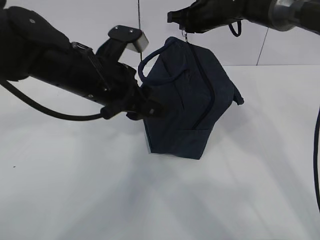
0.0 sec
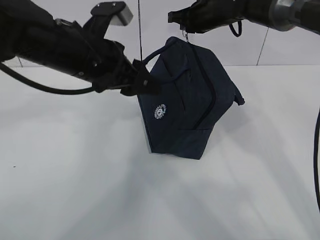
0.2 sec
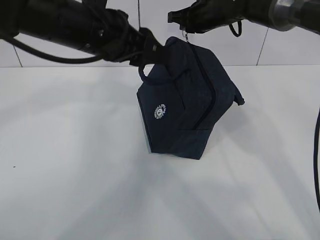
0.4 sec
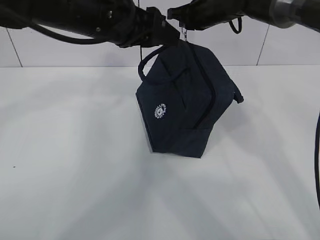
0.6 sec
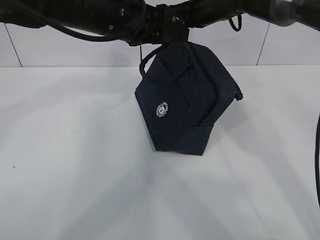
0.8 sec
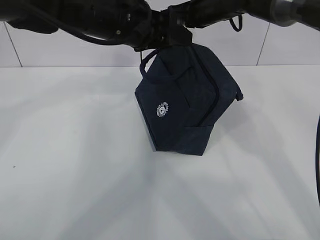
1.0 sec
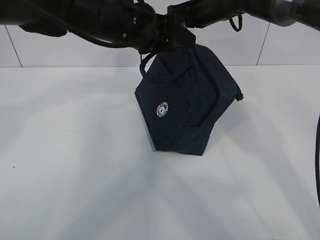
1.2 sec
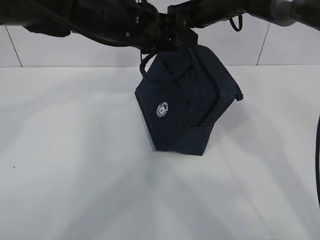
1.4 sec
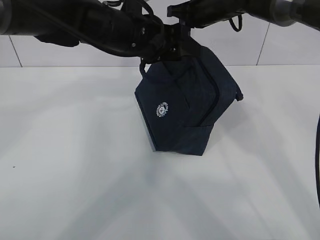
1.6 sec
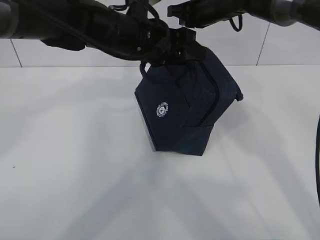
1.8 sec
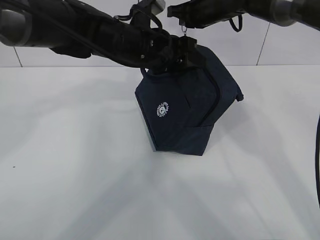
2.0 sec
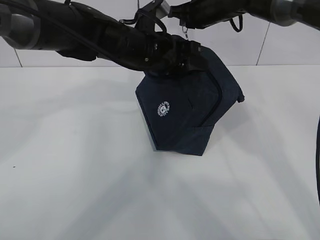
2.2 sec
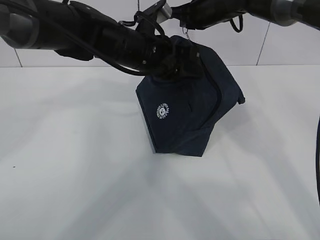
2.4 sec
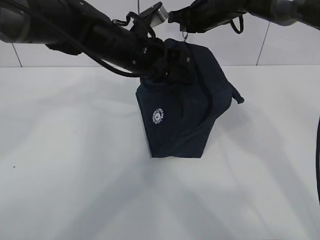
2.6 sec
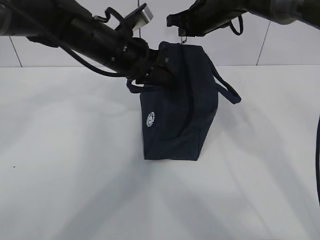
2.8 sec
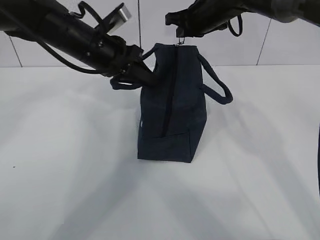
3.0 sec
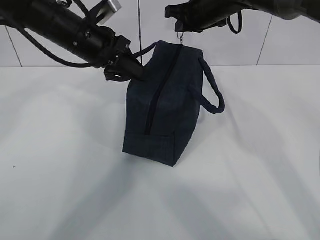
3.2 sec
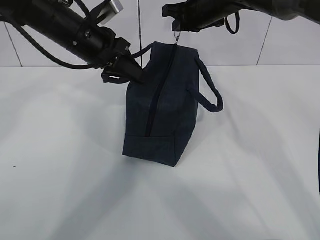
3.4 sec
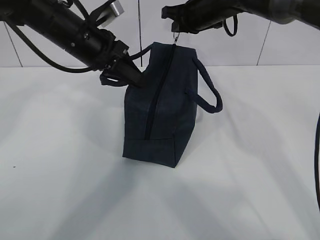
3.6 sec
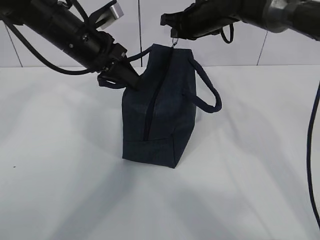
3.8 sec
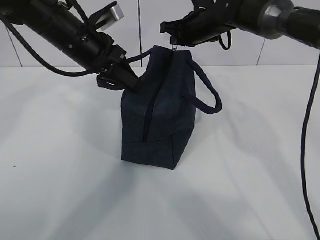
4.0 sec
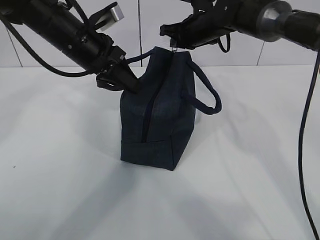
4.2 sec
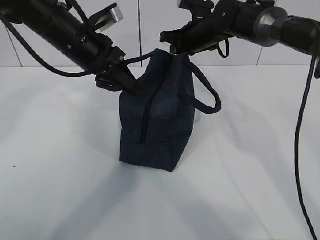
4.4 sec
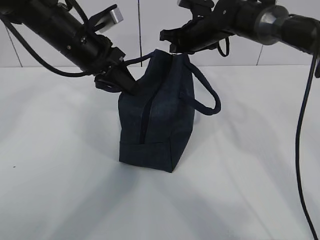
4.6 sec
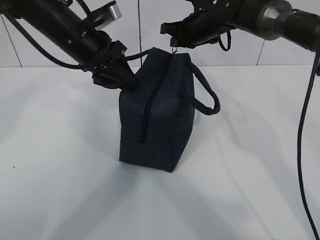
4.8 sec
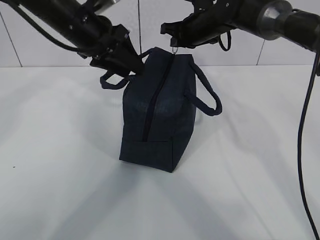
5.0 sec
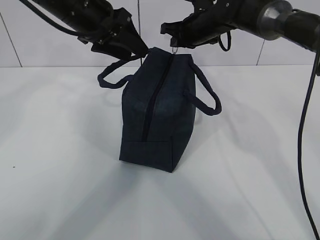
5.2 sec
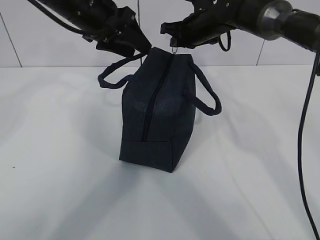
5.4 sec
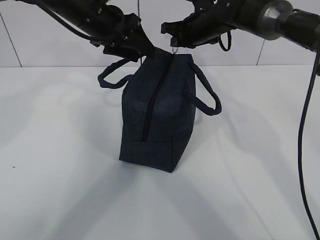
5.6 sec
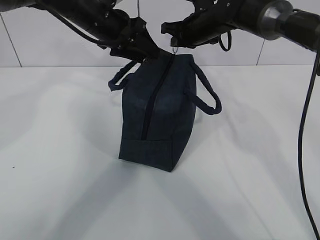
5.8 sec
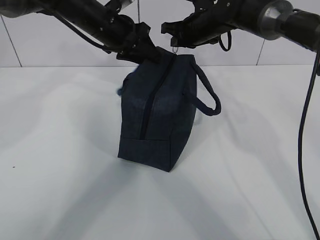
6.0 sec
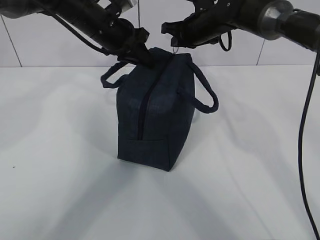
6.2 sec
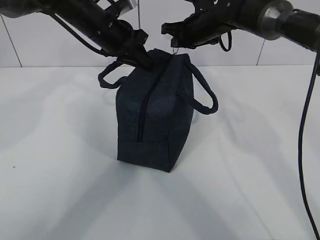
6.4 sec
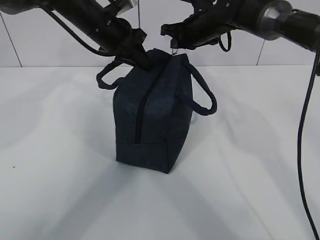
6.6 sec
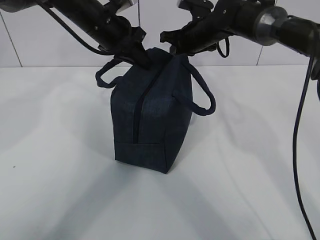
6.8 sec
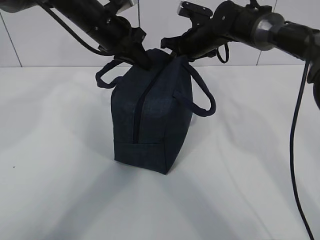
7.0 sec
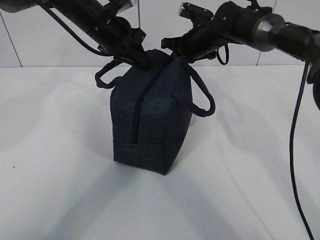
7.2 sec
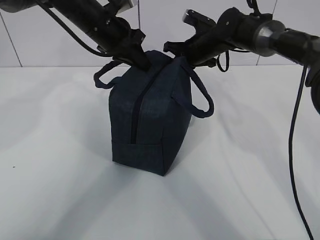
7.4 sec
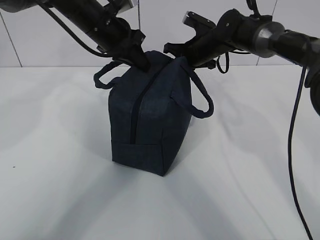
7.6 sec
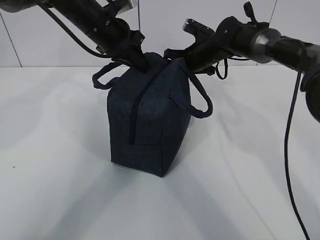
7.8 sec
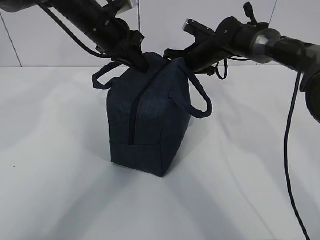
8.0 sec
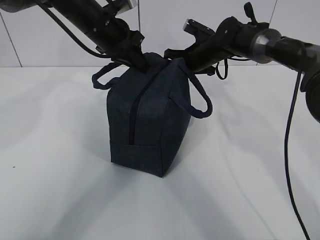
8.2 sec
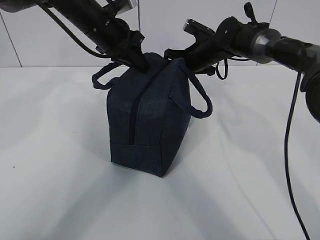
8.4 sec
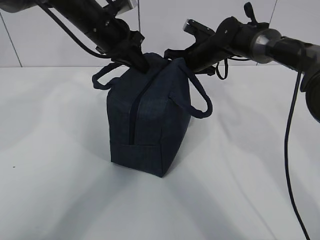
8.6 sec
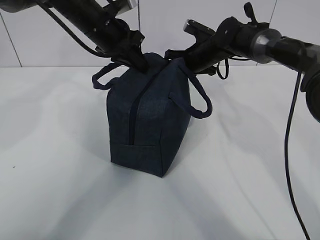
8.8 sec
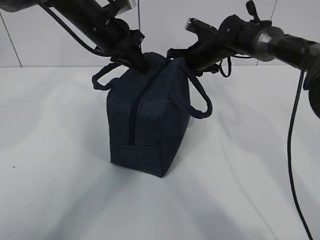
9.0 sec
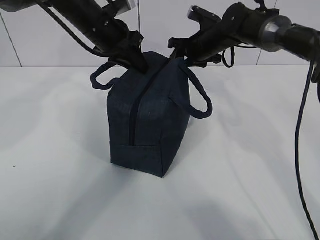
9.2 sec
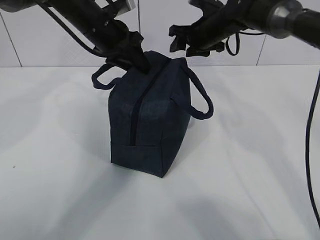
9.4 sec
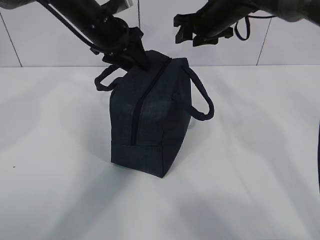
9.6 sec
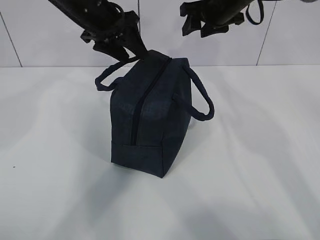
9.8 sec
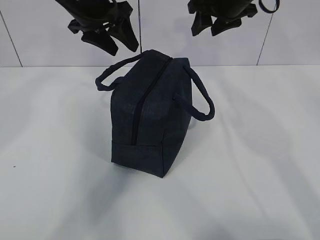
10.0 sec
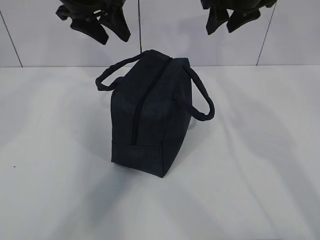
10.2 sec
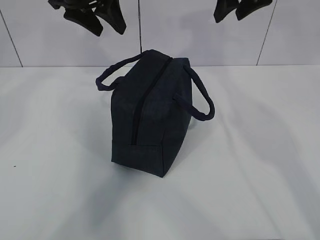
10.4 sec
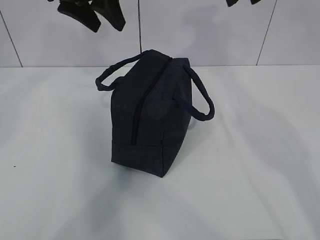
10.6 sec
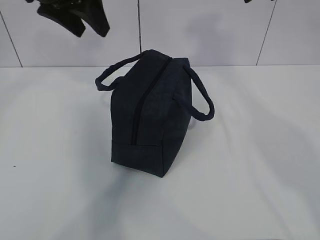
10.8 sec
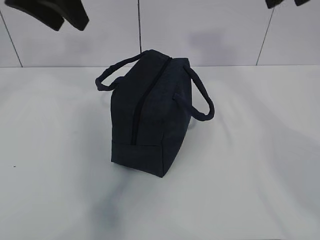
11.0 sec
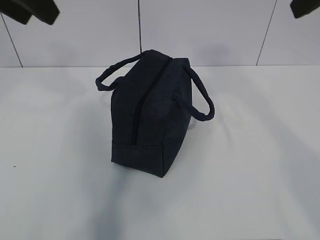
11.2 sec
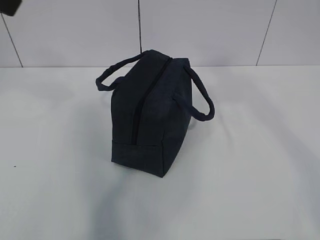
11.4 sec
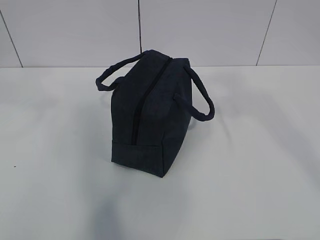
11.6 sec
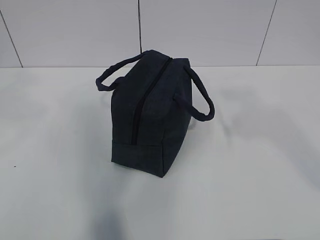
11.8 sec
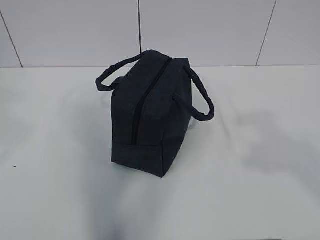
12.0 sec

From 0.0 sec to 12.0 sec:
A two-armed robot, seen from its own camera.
From 0.0 sec to 1.6 sec: The left gripper travels forward by roughly 5 cm.
From 1.6 sec to 3.0 sec: The left gripper is displaced to the left by about 5 cm, and closes.
From 3.0 sec to 4.4 sec: The right gripper moves roughly 5 cm.
From 4.4 sec to 6.0 sec: The left gripper goes approximately 5 cm forward, and opens its fingers.
From 6.0 sec to 7.6 sec: The right gripper travels downward by some 5 cm, while the left gripper closes.
From 7.6 sec to 9.0 sec: The right gripper opens up.
From 9.0 sec to 10.4 sec: The right gripper heads upward and backward, covering about 25 cm; the left gripper is displaced upward by approximately 10 cm, and opens up.
From 10.4 sec to 12.0 sec: Both grippers travel together backward, roughly 35 cm. The left gripper closes its fingers.

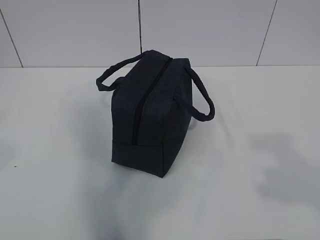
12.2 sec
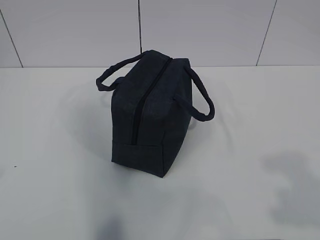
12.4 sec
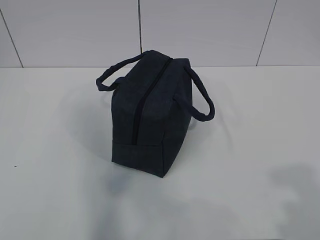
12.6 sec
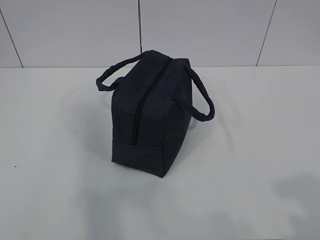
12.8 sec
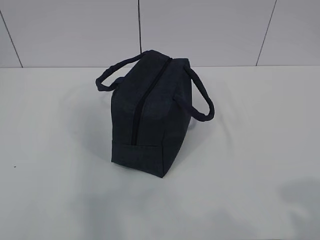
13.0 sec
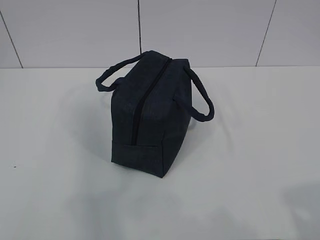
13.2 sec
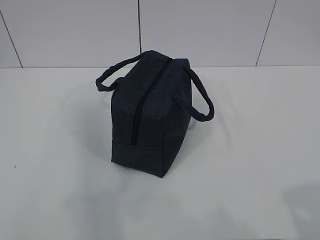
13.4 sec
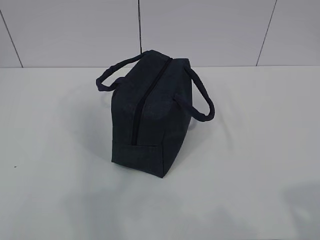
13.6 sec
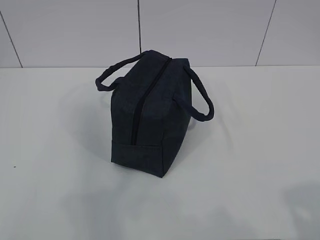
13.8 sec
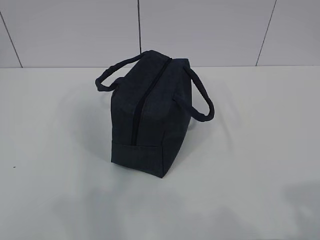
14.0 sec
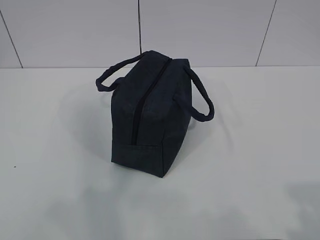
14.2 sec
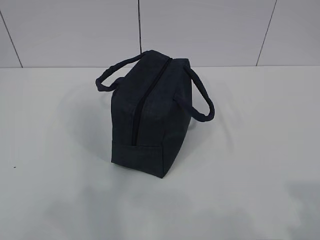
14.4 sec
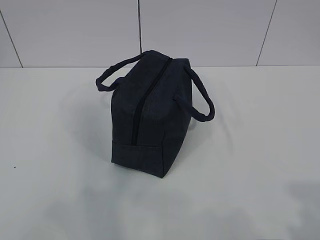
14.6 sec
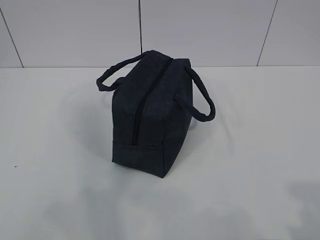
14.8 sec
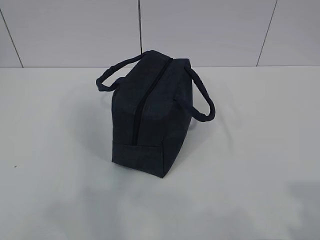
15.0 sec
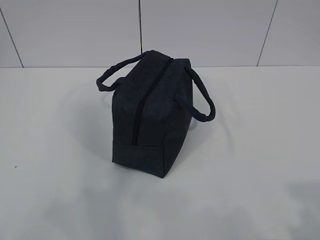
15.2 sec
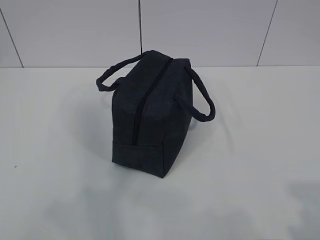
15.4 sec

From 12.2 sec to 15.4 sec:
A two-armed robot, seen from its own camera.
From 12.2 sec to 13.8 sec: The left gripper moves downward and backward, some 15 cm; the right gripper shifts approximately 10 cm downward.
From 13.8 sec to 15.4 sec: There are only small adjustments of the grippers.

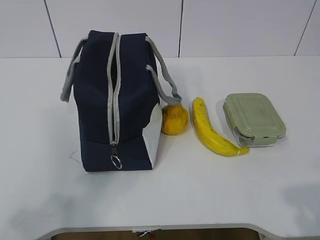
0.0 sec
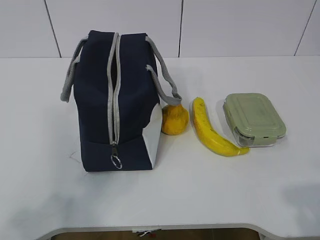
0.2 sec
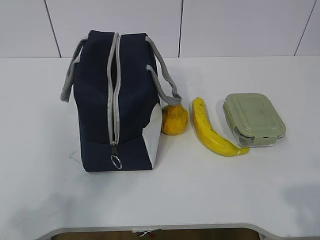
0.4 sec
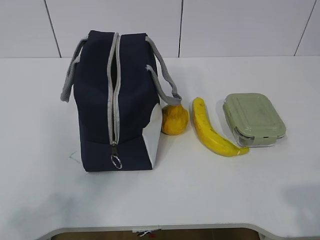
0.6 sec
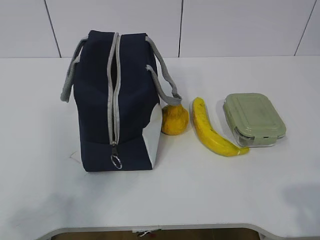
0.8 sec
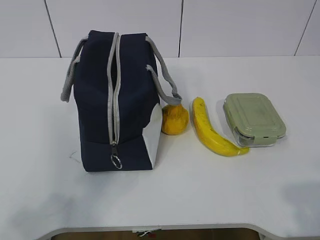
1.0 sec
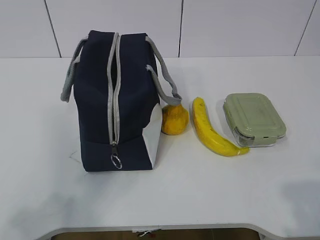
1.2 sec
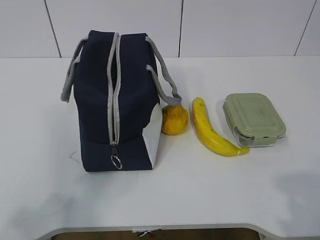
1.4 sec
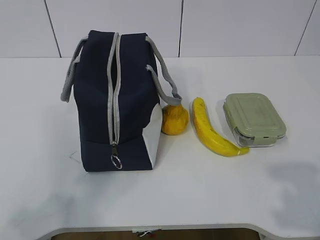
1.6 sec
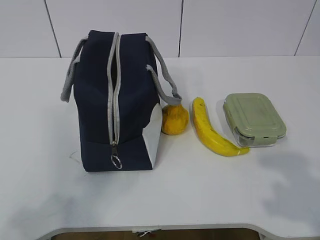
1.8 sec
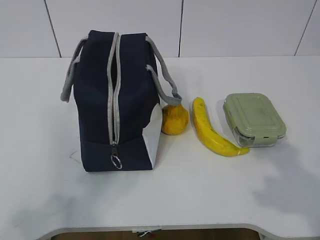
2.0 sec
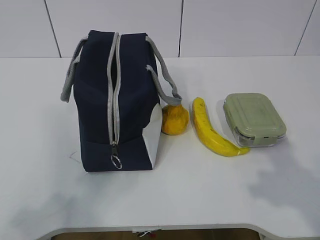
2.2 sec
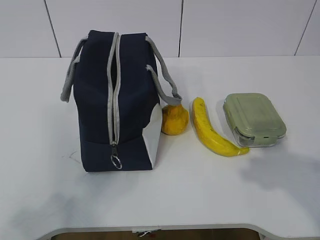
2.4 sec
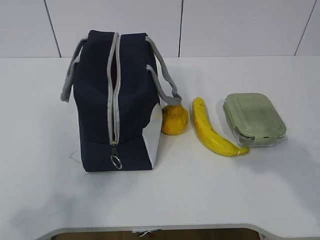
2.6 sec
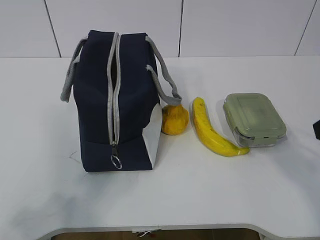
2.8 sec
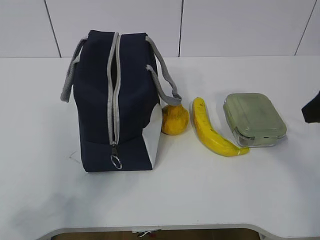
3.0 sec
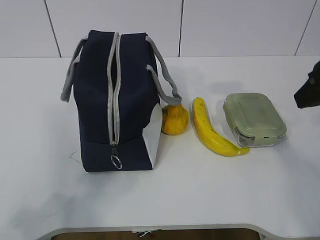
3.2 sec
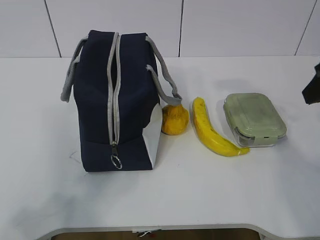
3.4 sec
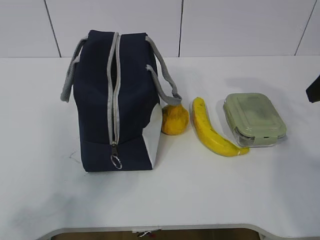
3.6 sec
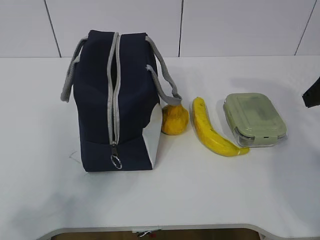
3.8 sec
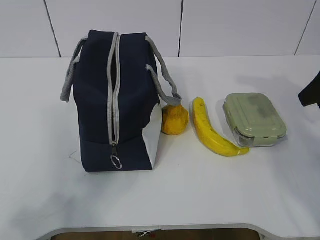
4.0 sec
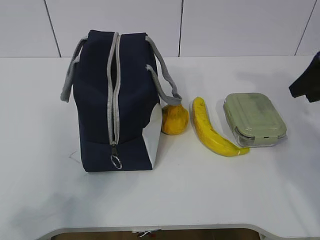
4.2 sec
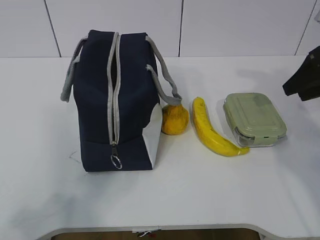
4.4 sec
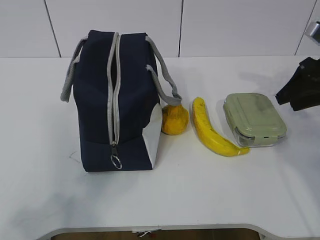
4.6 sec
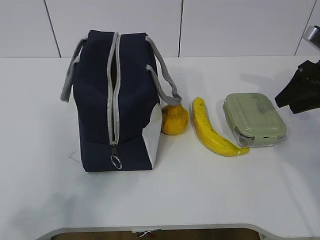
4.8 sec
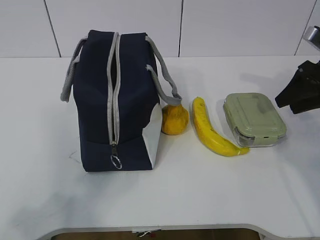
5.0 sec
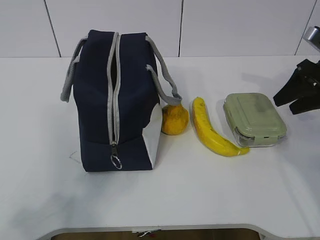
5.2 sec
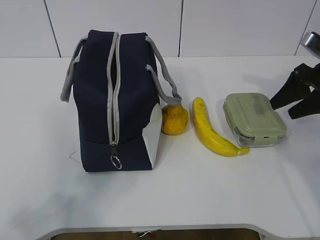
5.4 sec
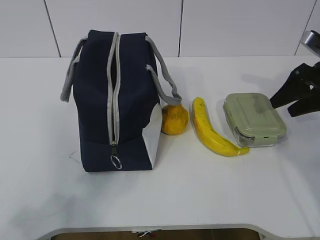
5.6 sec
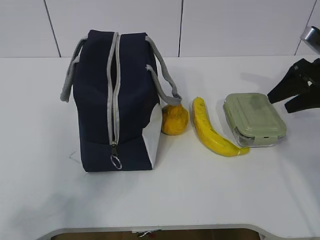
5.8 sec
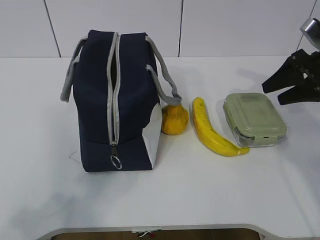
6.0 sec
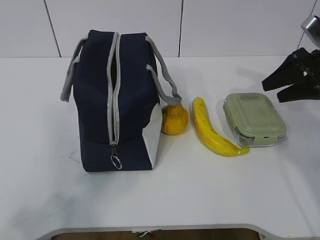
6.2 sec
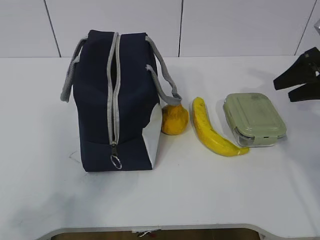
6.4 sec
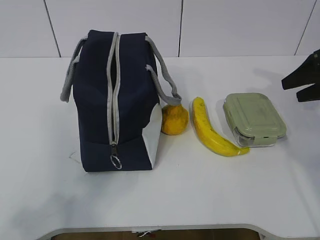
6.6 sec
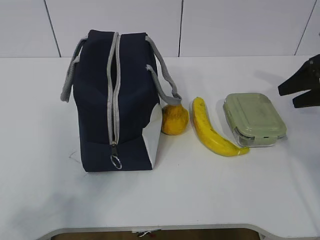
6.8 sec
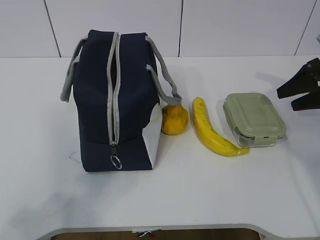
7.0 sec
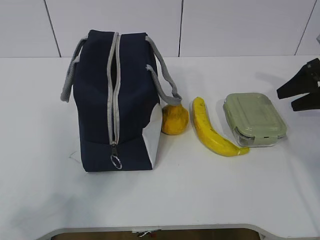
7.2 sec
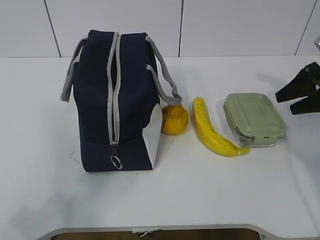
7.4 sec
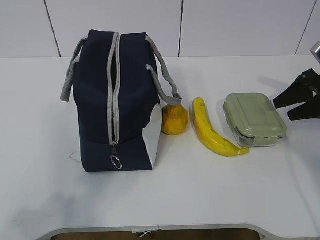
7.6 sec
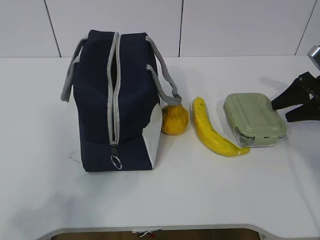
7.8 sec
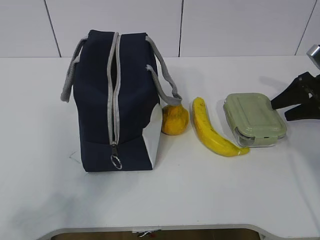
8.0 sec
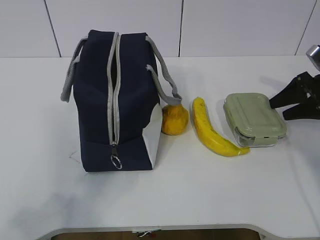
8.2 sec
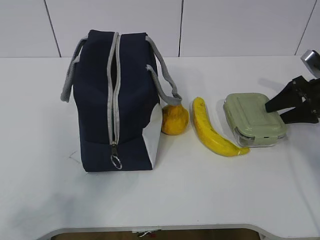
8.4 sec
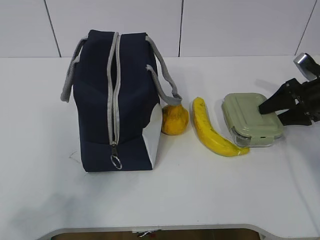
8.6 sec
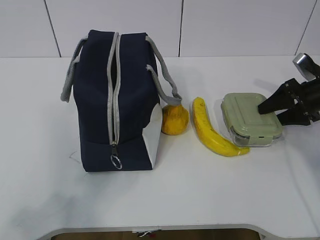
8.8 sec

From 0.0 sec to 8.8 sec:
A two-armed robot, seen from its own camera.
From 1.4 sec to 3.0 sec: The right gripper is displaced forward by some 20 cm.
From 3.0 sec to 4.4 sec: The right gripper shifts approximately 15 cm forward and to the right.
From 4.4 sec to 5.8 sec: There are only small adjustments of the grippers.
From 5.8 sec to 7.4 sec: The grippers move only a little.
From 7.4 sec to 8.8 sec: The right gripper heads downward, covering roughly 5 cm.
